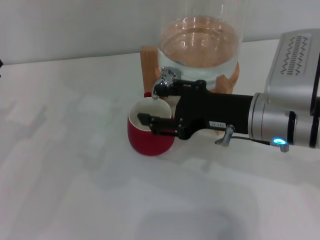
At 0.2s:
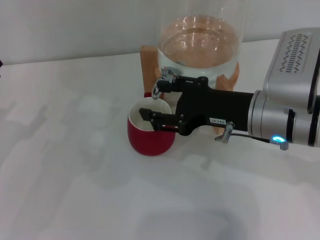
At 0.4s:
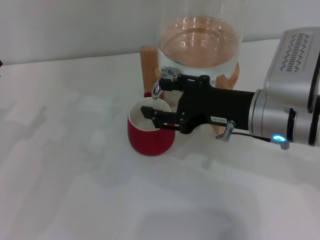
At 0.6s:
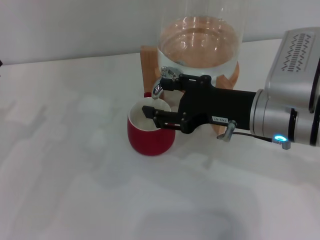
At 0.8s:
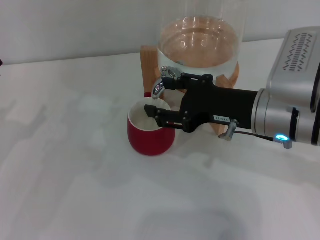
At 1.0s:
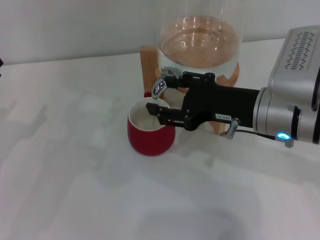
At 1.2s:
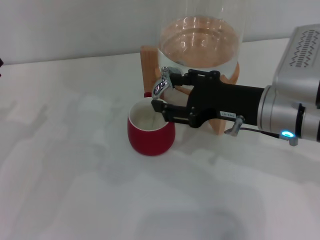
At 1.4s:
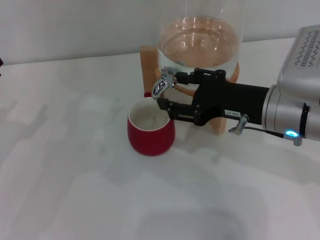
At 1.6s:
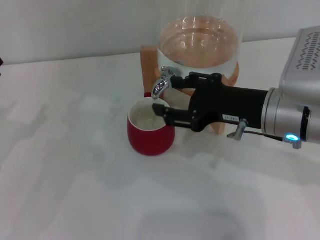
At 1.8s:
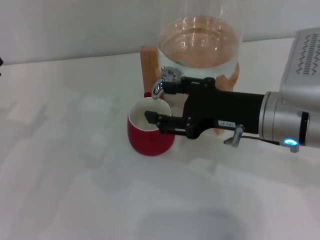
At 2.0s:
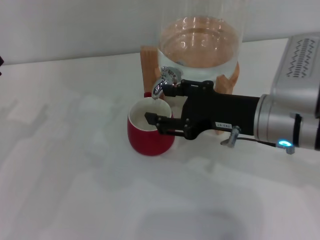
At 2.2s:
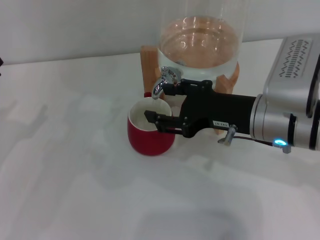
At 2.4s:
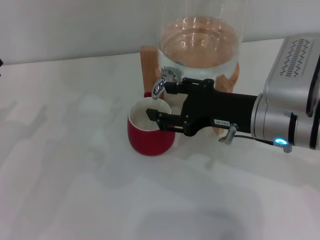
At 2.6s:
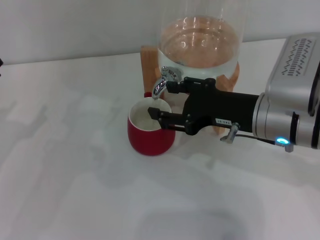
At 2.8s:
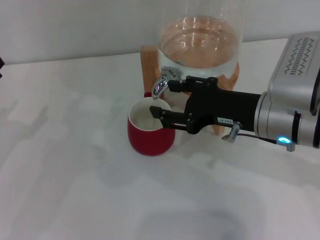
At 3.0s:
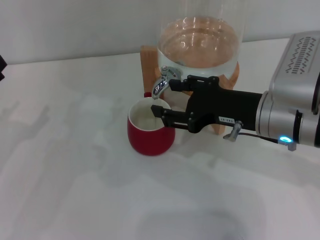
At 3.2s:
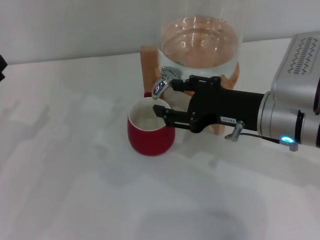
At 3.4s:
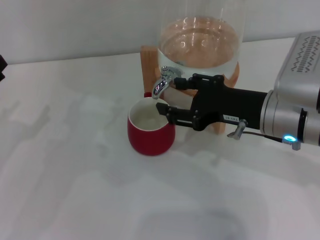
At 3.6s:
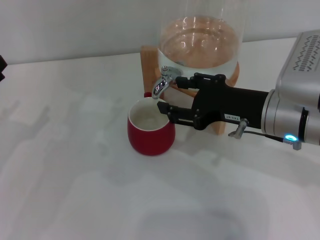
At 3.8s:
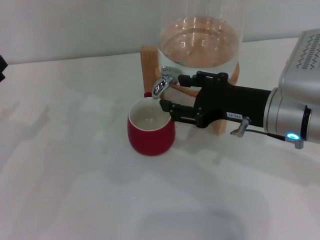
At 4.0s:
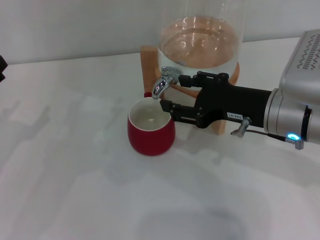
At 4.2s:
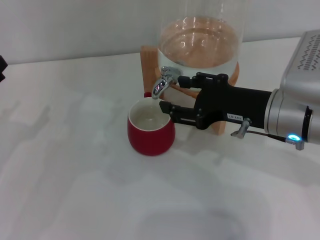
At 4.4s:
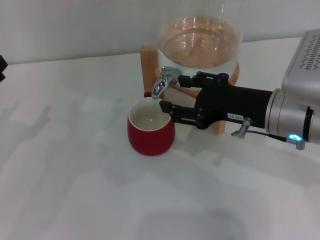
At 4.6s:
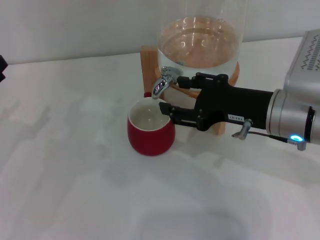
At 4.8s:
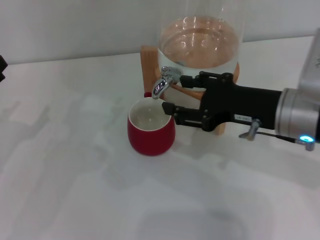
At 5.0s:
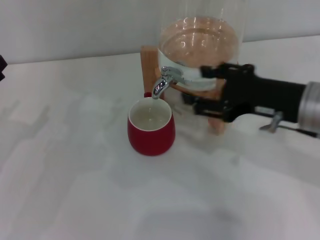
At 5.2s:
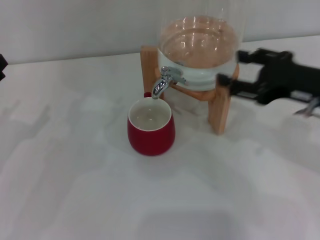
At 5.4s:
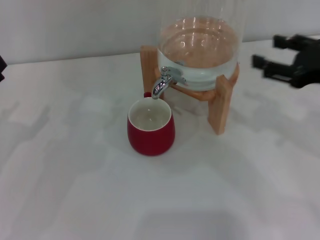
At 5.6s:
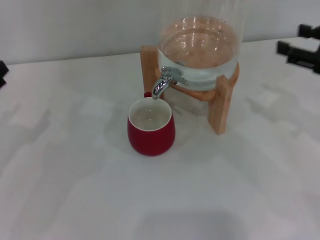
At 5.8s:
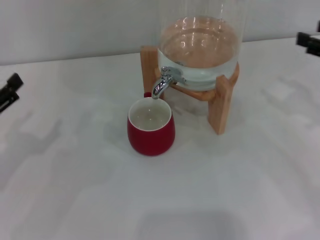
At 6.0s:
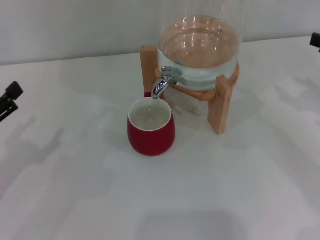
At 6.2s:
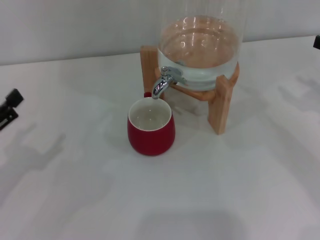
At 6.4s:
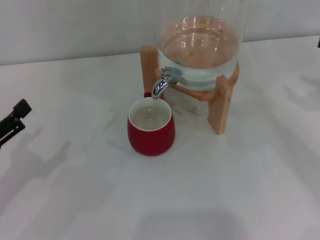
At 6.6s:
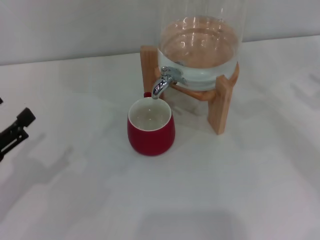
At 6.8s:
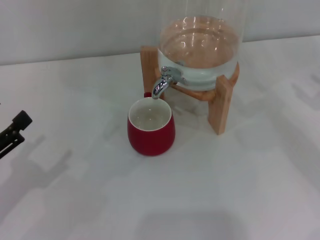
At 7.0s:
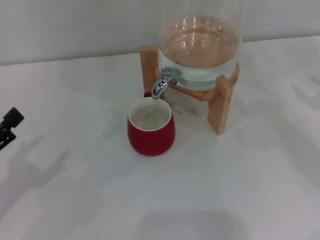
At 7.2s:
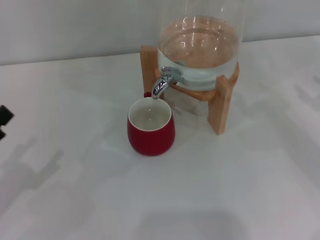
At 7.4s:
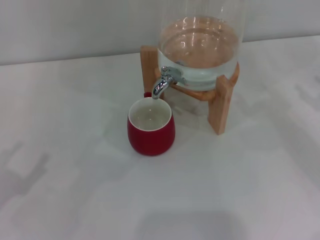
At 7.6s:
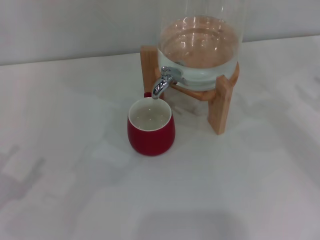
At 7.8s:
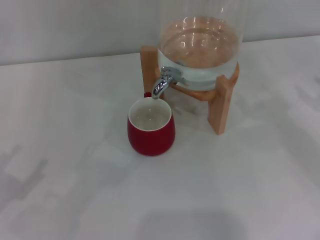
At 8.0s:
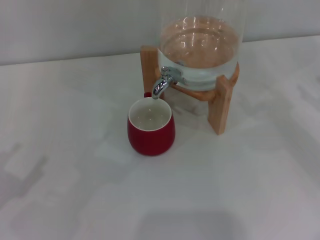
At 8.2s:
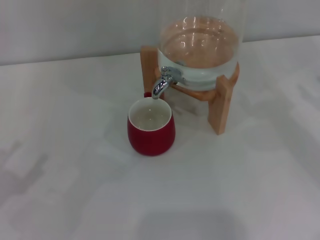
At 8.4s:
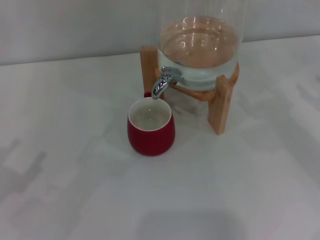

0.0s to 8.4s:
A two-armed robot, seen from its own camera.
Task of the whole recording: the left gripper pick up the red cup and place it horizontally under the faucet, the right gripper turn on the faucet to fill the cup, and then turn off the faucet.
Step, 0.0s to 4.8s: Close the dispenser valve with the right gripper.
0.0s to 2.8s: The grippers move only a little.
2.8s to 4.2s: Neither gripper changes place.
4.2s to 5.6s: The right gripper heads to the right, covering approximately 15 cm.
5.6s to 7.0s: The left gripper shifts roughly 5 cm backward, while the right gripper goes approximately 10 cm to the right.
7.0s to 8.4s: The grippers make only small movements.
